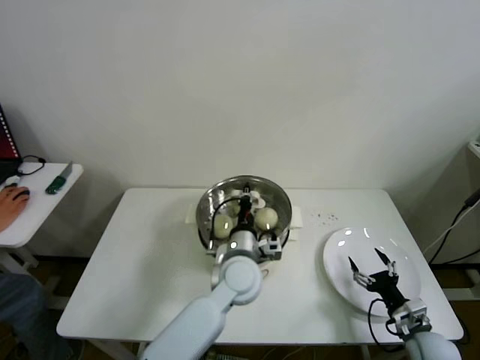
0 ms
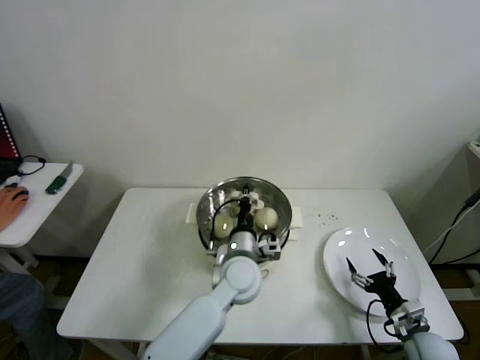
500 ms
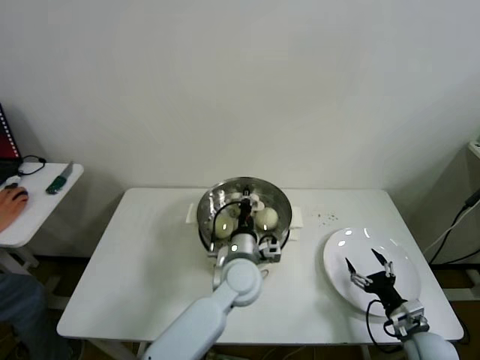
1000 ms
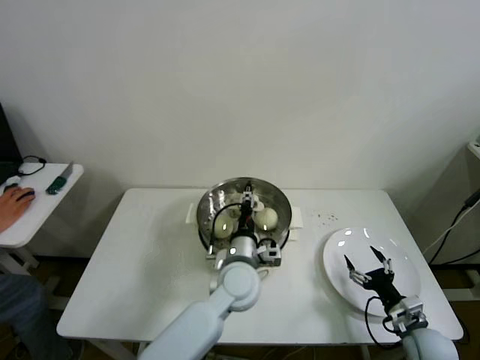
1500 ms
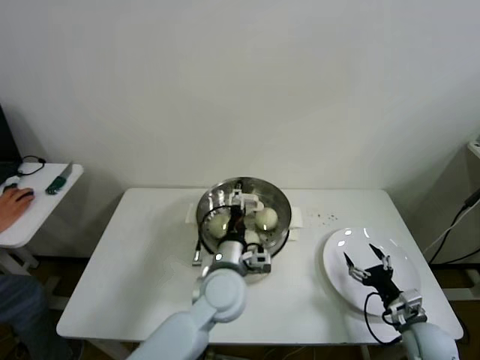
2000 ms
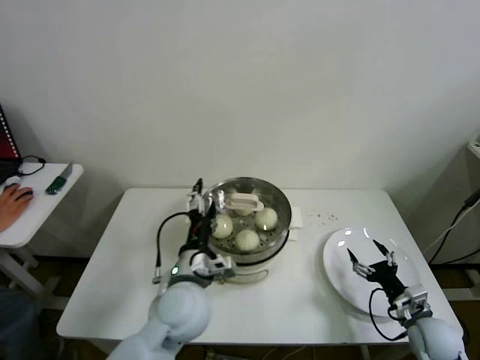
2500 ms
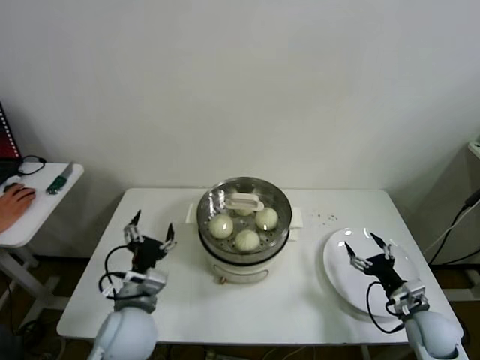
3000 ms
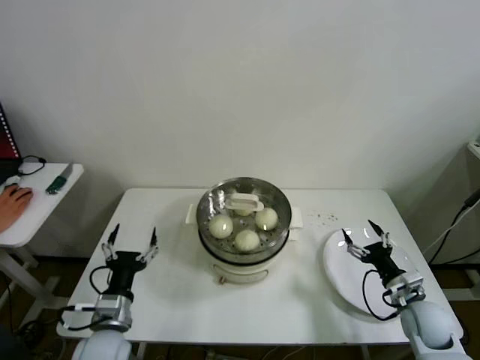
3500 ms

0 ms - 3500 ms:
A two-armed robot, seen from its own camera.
0 ms - 2000 ms: The left gripper opens up.
2000 ms - 3500 ms: The left gripper heads to the left and backward, covering approximately 25 cm.
